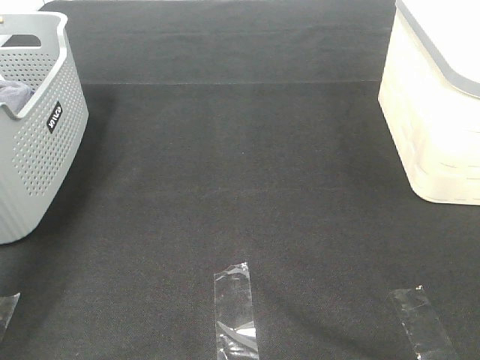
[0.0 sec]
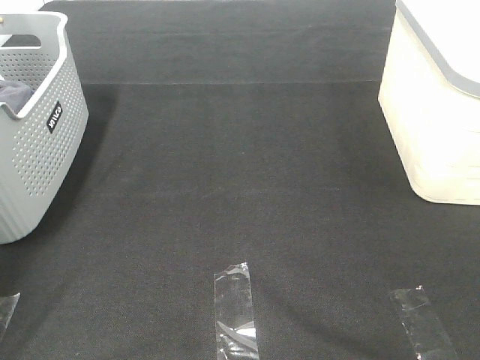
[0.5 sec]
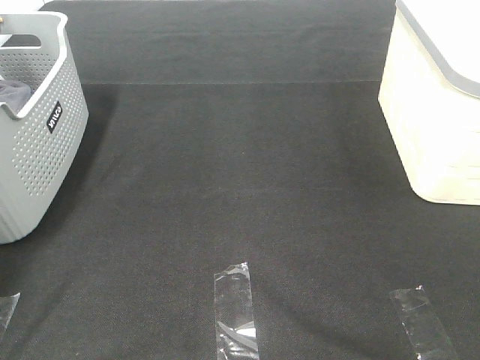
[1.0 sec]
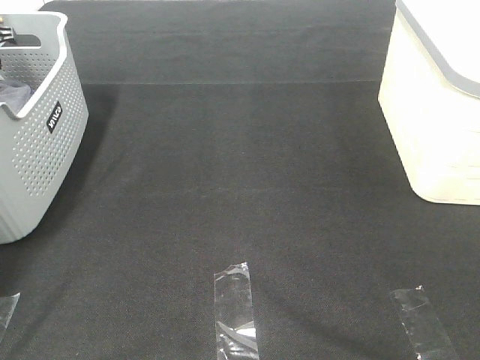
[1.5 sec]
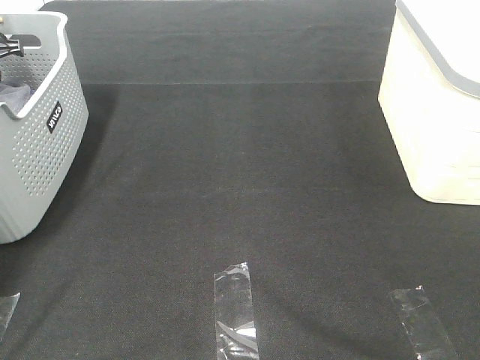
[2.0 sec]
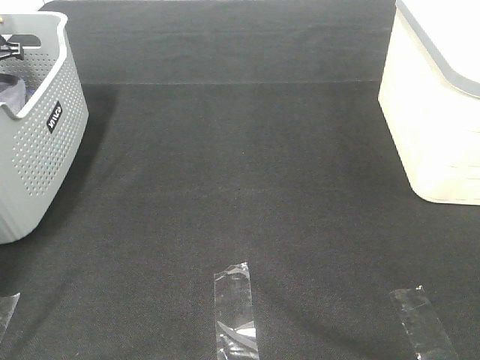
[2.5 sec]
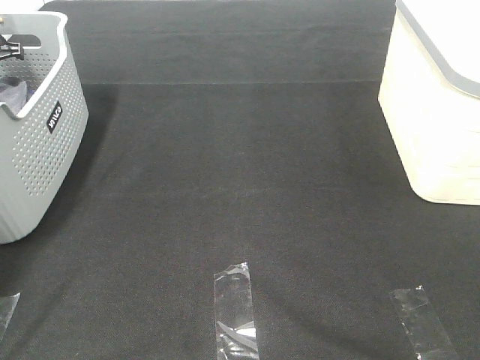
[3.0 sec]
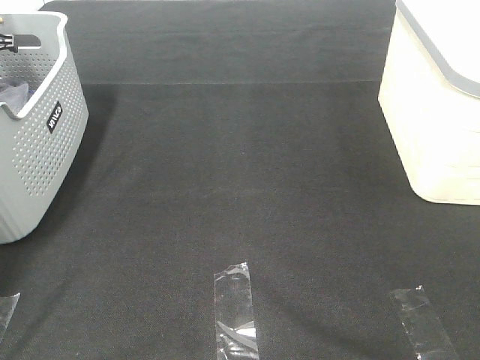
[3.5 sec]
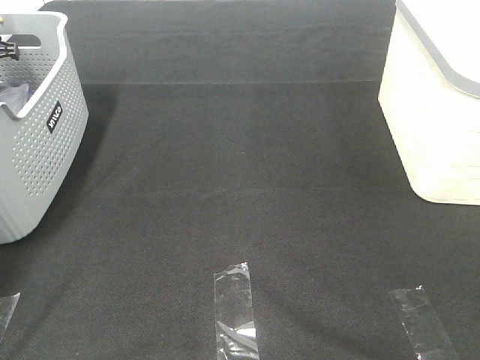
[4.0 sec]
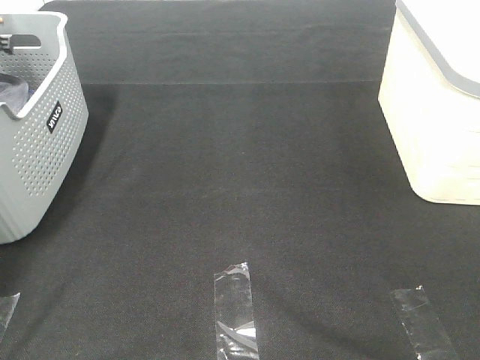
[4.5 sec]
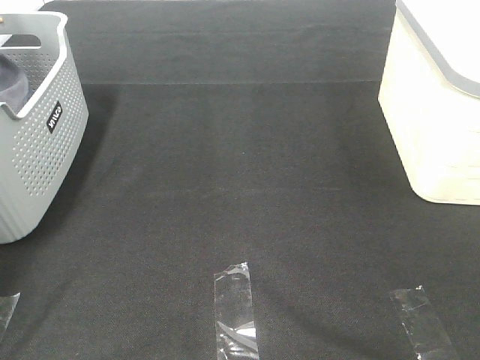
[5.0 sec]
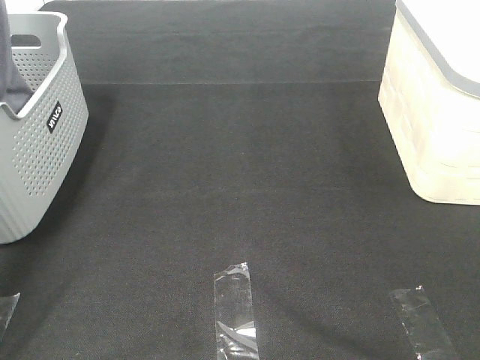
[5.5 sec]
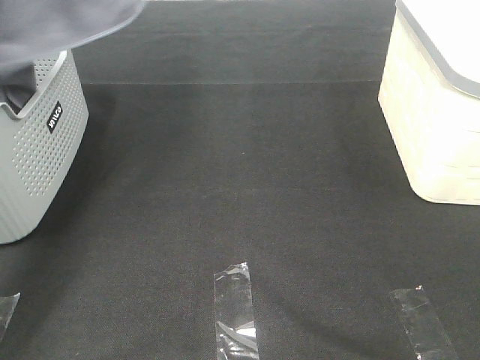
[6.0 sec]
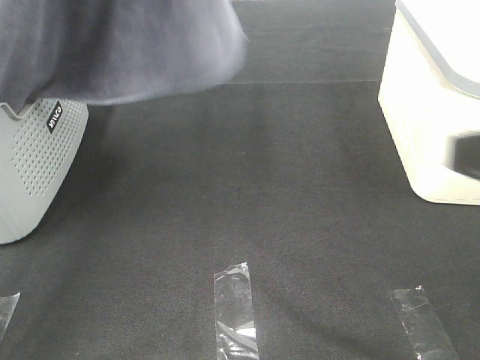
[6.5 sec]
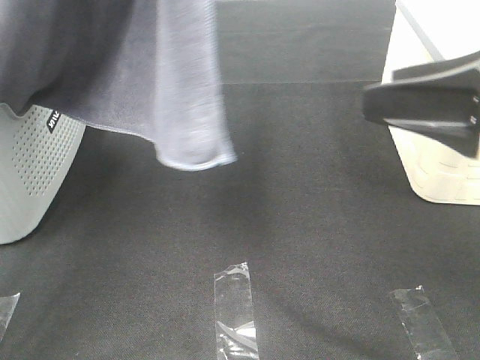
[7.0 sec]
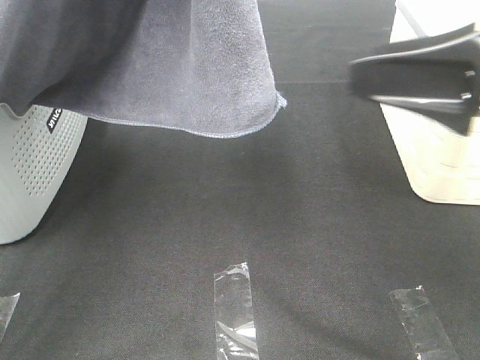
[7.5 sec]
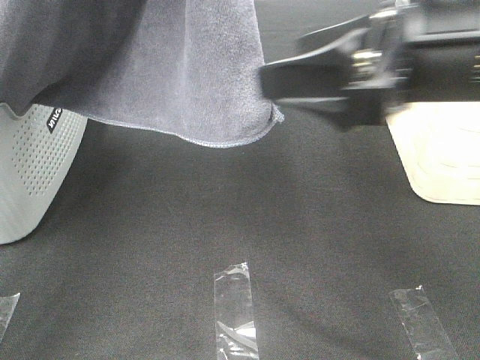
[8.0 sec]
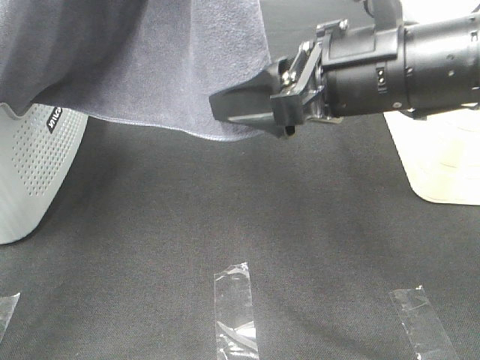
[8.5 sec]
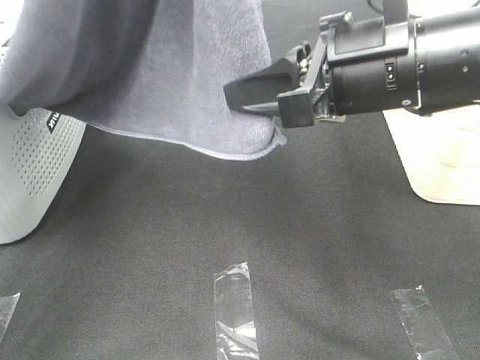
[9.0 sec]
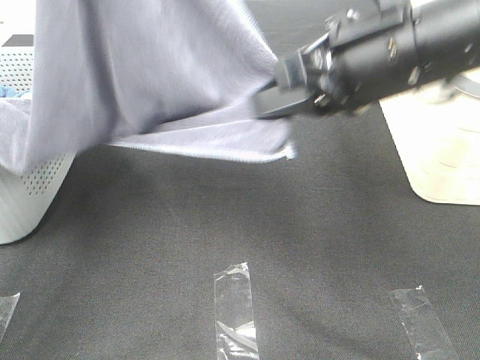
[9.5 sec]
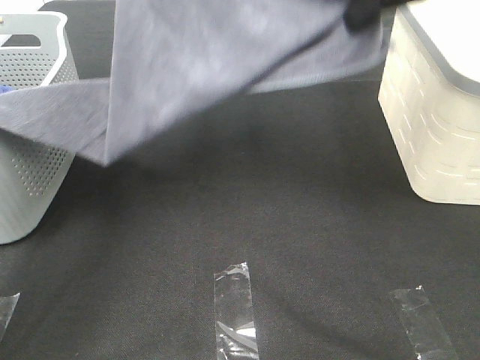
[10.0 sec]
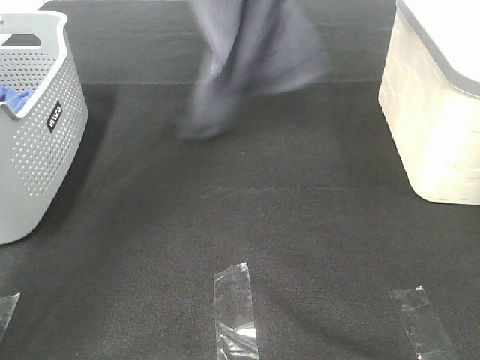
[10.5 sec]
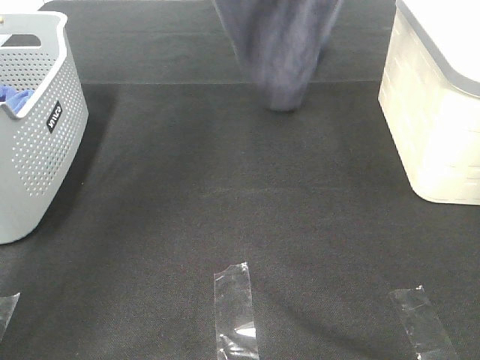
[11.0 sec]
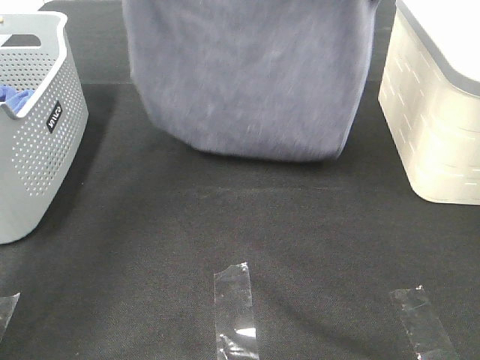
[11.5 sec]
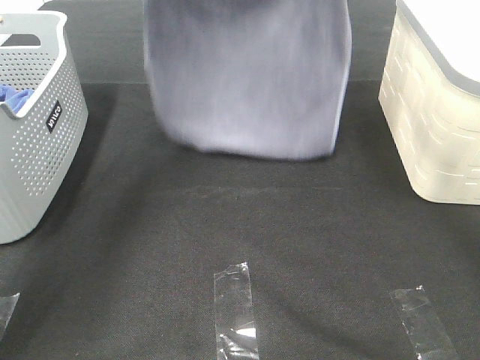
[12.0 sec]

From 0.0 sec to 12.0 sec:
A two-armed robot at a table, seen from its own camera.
Task of the whole recording: Remove the towel and place it.
Step, from 5.0 sec to 7.5 sec: Right hand: grab a corner of the grey towel and straighten it.
Step, from 8.0 sec to 11.5 sec: Left hand: spread the grey towel flat on the table.
Step, from 8.0 sec to 11.5 sec: Right hand: spread the grey towel flat on the table.
From 0.0 sec to 2.0 sec: The left gripper travels downward, forward and to the left by about 20 cm, and closes its fingers.
From 4.0 sec to 6.0 sec: The left gripper moves upward, backward and to the right, approximately 40 cm, and closes.
From 6.0 sec to 8.0 sec: The right gripper goes about 25 cm forward and to the left; the left gripper travels to the right and backward by roughly 15 cm.
From 8.0 sec to 10.0 sec: The right gripper travels forward and upward by approximately 15 cm, and closes up. The left gripper is displaced forward and downward by some 20 cm.
From 10.0 sec to 12.0 sec: The left gripper heads forward and downward, covering approximately 10 cm. The right gripper shifts approximately 15 cm forward, and goes upward and returns, approximately 15 cm each way.

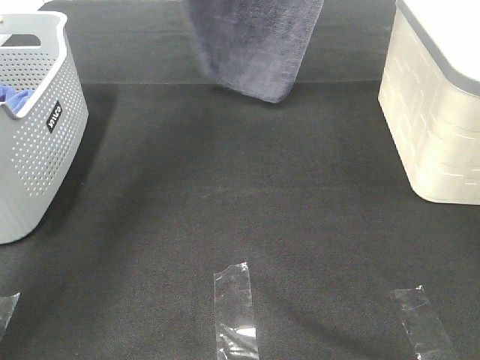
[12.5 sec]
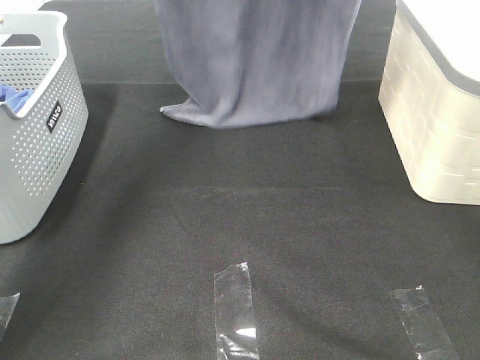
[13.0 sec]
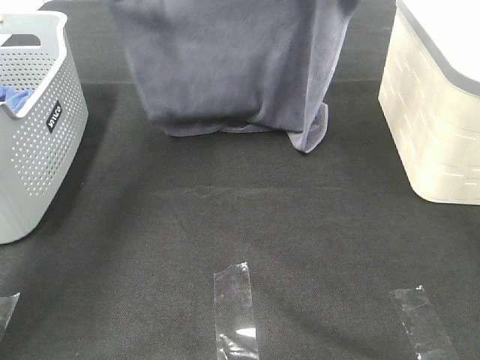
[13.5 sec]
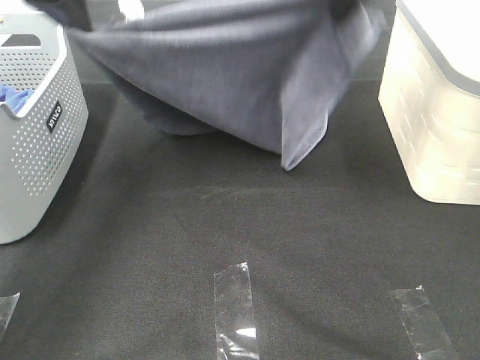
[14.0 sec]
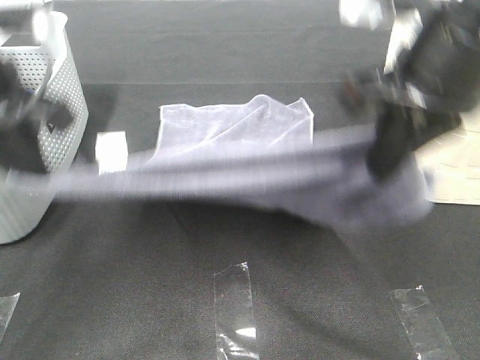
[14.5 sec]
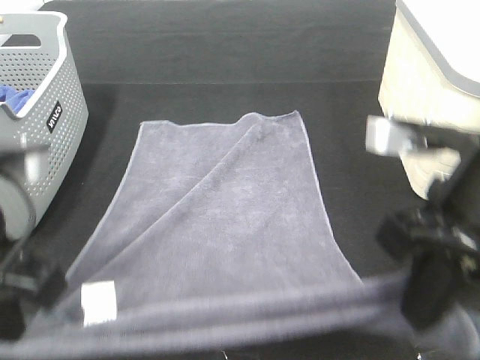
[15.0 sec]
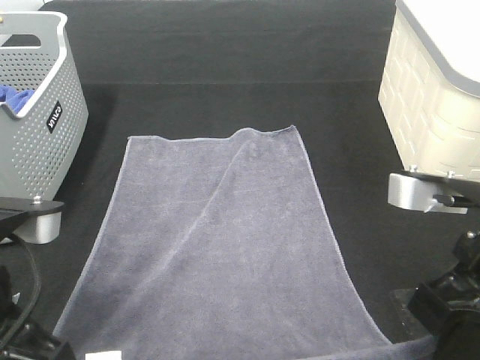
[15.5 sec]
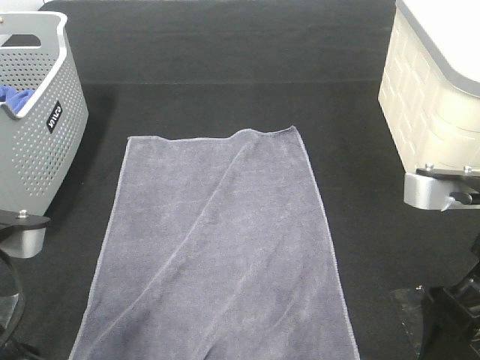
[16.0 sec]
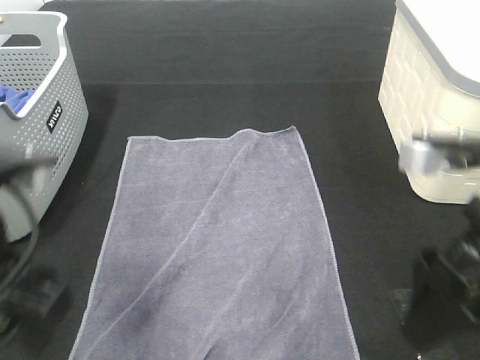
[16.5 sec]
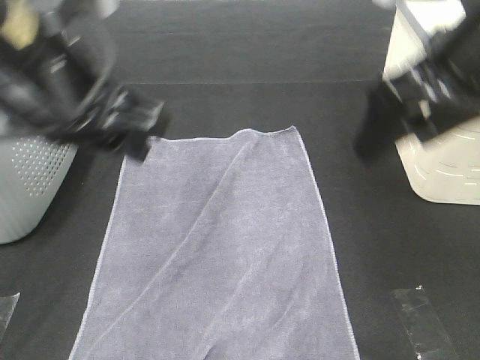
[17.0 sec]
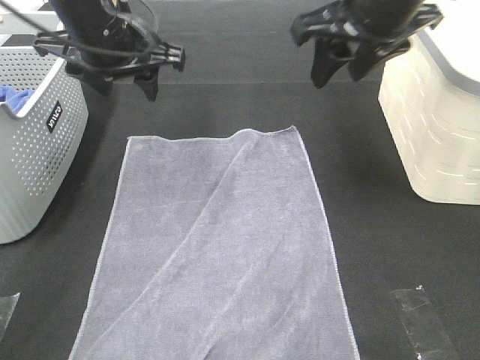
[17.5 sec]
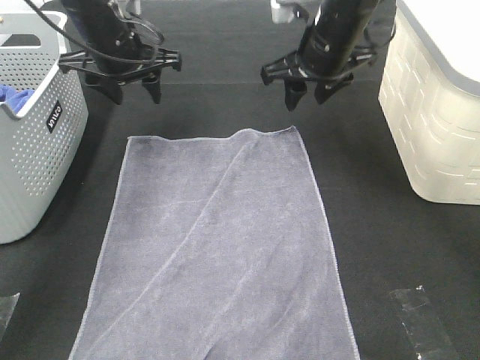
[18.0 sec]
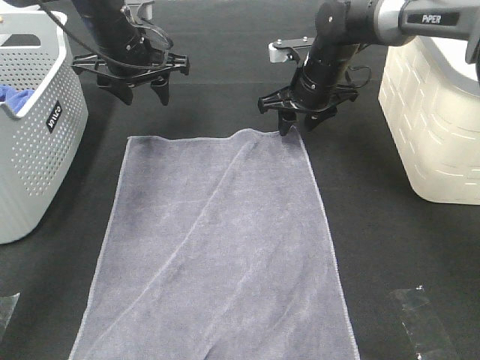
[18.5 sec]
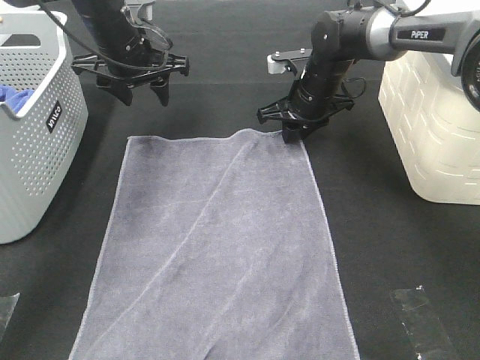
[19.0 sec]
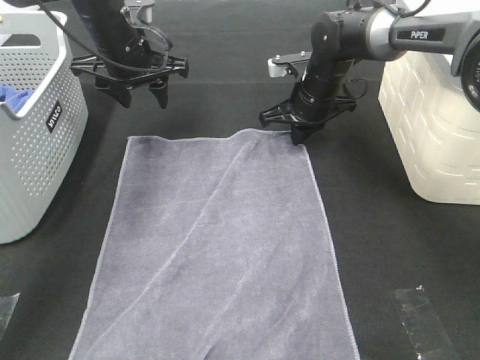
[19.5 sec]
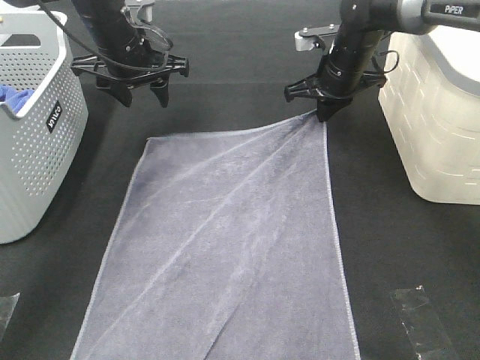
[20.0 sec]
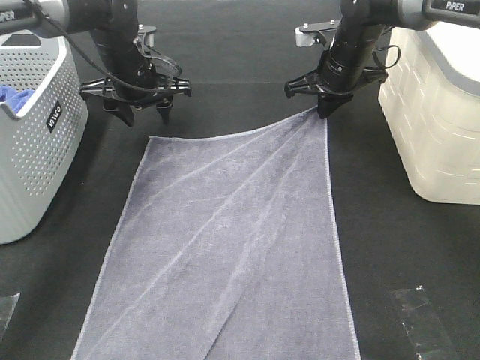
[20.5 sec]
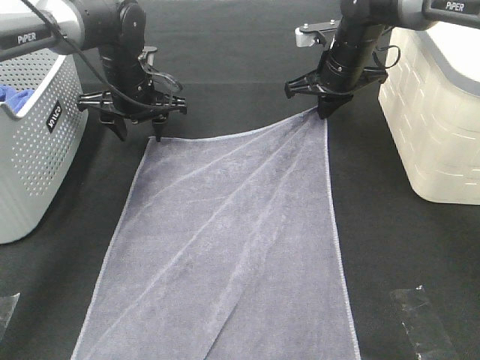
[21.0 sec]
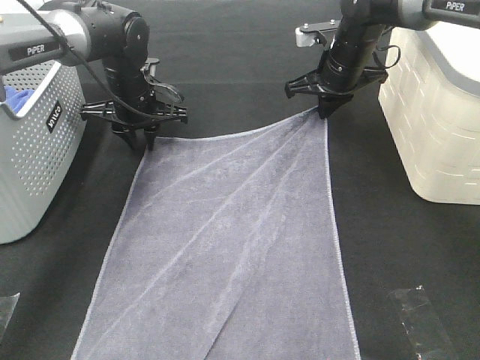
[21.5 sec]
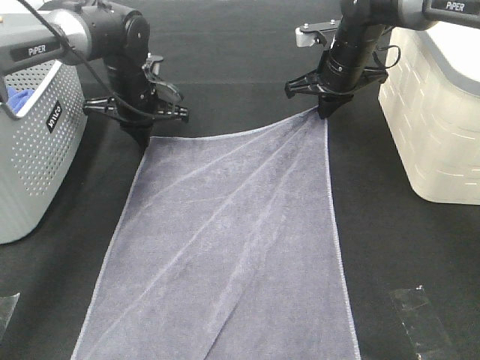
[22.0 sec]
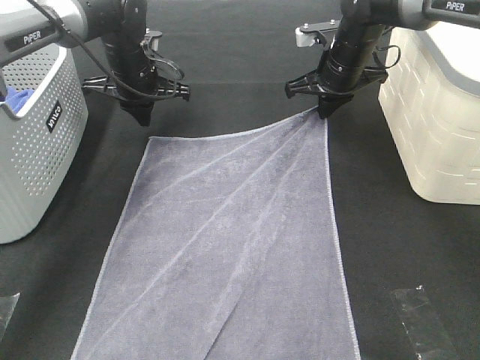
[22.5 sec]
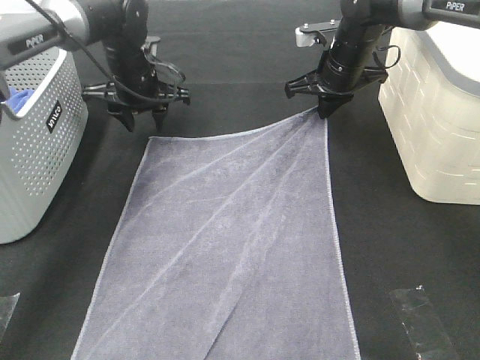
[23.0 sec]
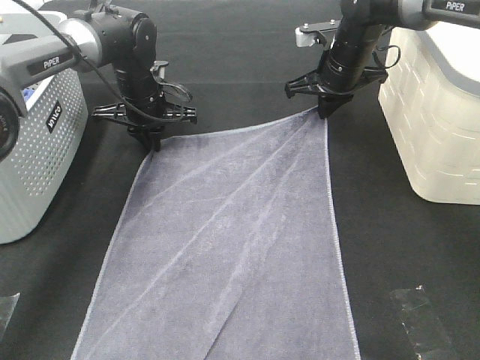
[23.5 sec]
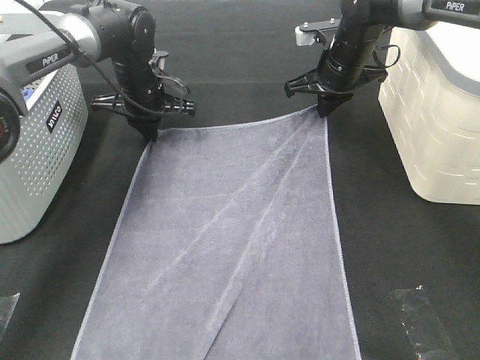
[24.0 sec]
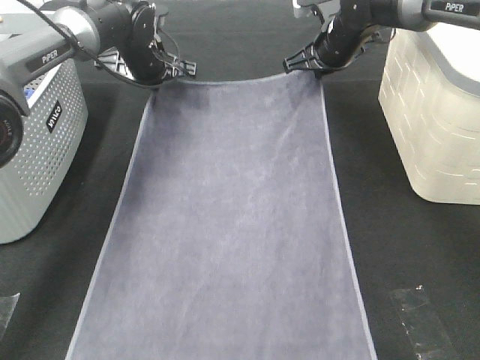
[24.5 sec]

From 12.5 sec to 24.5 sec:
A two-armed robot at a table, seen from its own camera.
Task of the whole recording: Remove the towel and place it.
Step, from 12.5 sec to 20.5 sec: Left hand:adjust the gray towel.
Step, from 12.5 sec to 20.5 sec: Right hand:adjust the gray towel.
From 12.5 sec to 14.5 sec: The right gripper is displaced downward and backward by some 30 cm. The left gripper shifts some 30 cm backward and downward.
From 14.5 sec to 16.5 sec: The right gripper travels backward and downward by some 10 cm, and opens up; the left gripper shifts some 10 cm backward, and opens.
From 16.5 sec to 18.5 sec: The two grippers go some 35 cm forward. The right gripper closes its fingers.
From 18.5 sec to 20.5 sec: The right gripper closes its fingers.
From 20.5 sec to 22.5 sec: The left gripper closes.
From 22.5 sec to 24.5 sec: The left gripper opens, then closes again.

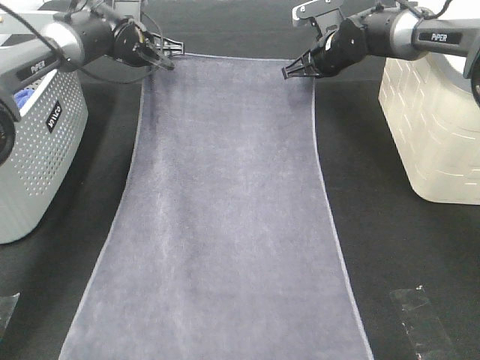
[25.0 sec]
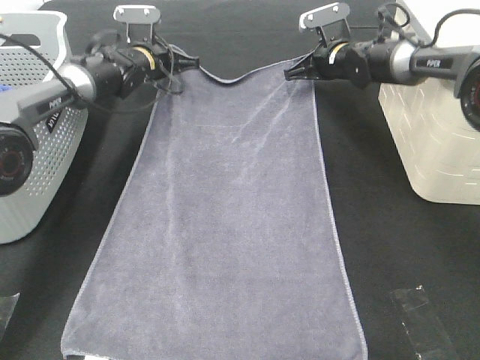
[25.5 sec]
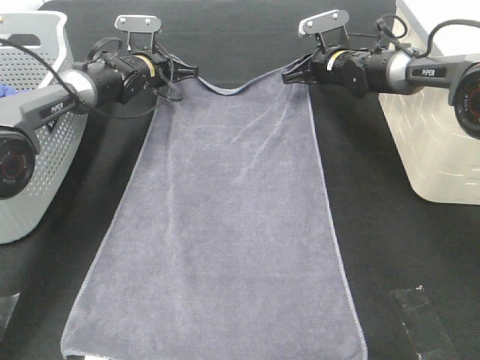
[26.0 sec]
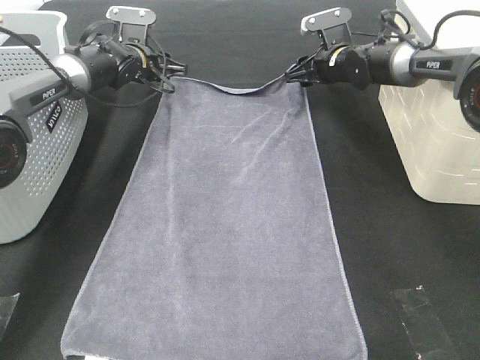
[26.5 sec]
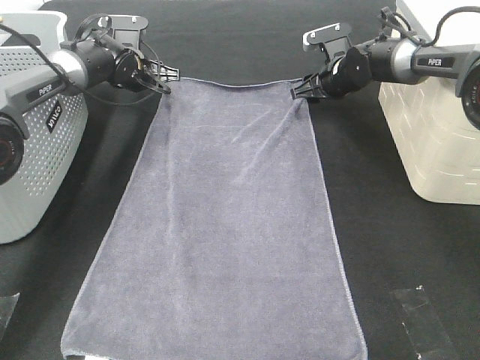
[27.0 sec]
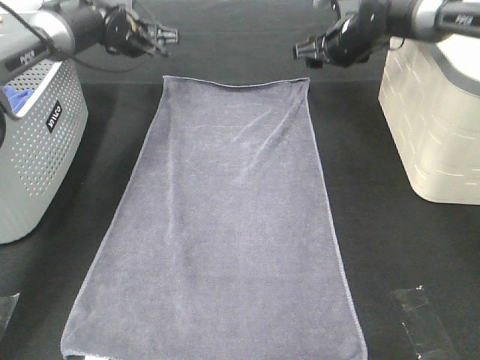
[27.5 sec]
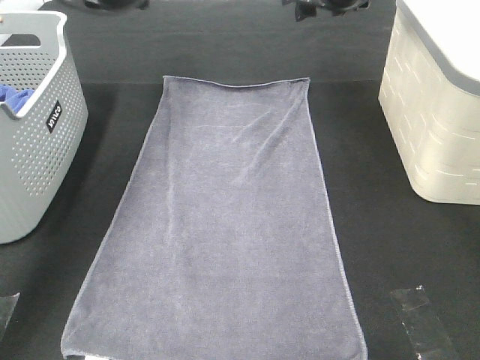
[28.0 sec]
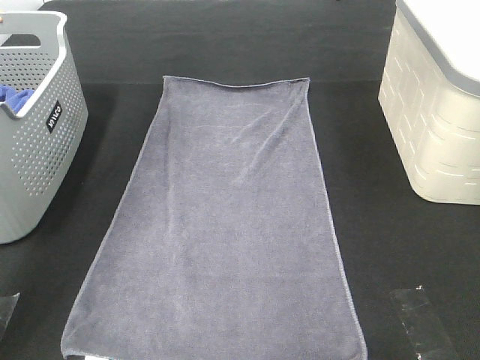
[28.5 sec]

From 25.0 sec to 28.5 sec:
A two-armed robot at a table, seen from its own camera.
Task of the whole recording: Remove the towel and place it.
From 25.0 sec to 27.0 sec: The left gripper opens up, while the right gripper moves some 5 cm, and opens its fingers.
From 27.0 sec to 28.5 sec: Both grippers move upward and backward, approximately 30 cm.
